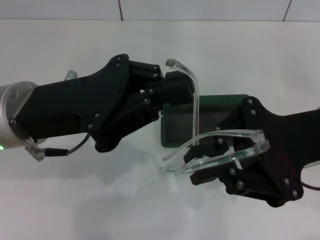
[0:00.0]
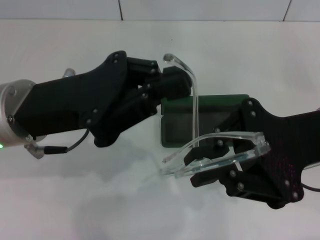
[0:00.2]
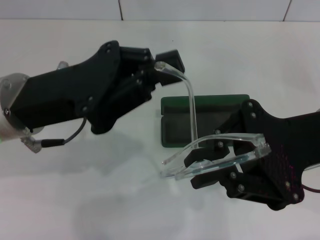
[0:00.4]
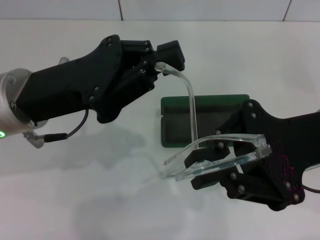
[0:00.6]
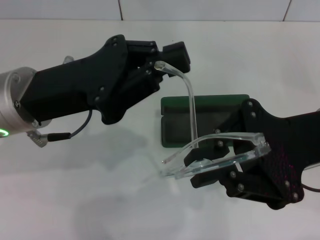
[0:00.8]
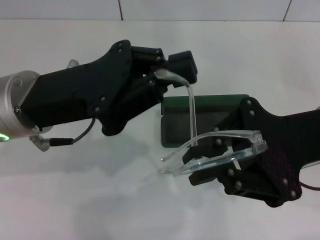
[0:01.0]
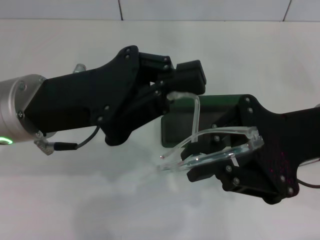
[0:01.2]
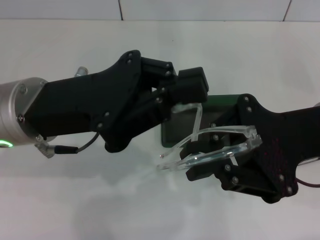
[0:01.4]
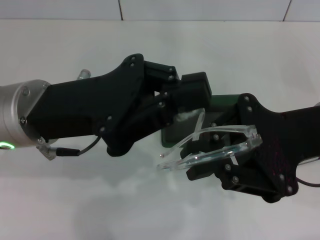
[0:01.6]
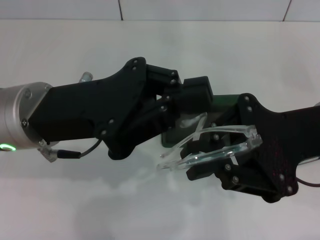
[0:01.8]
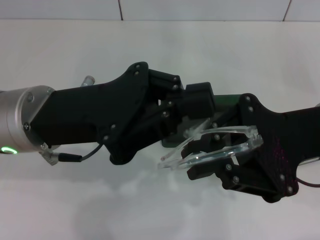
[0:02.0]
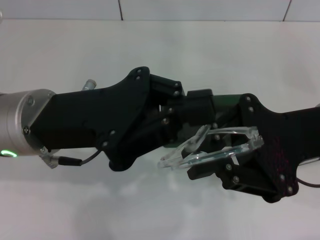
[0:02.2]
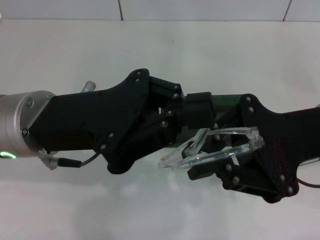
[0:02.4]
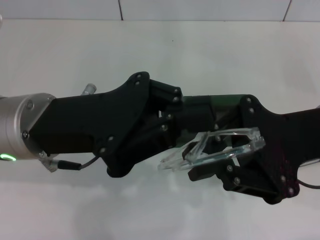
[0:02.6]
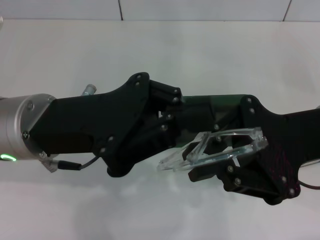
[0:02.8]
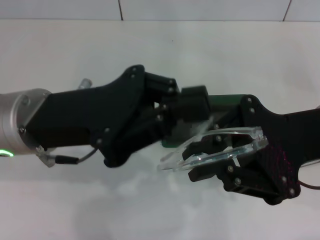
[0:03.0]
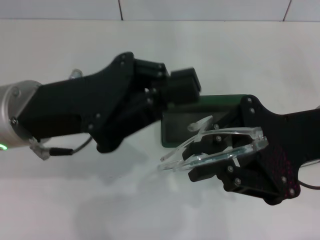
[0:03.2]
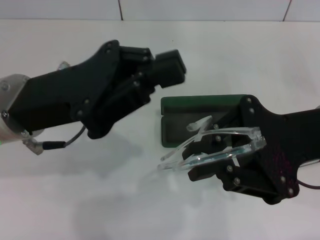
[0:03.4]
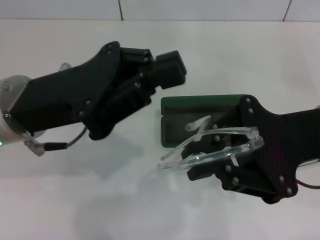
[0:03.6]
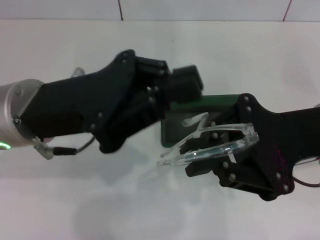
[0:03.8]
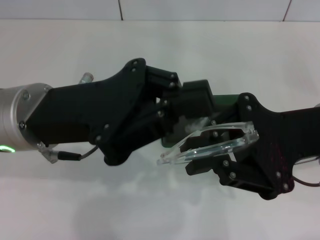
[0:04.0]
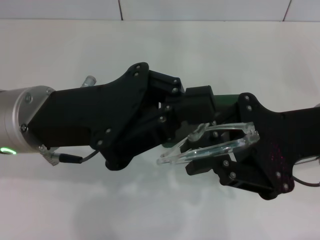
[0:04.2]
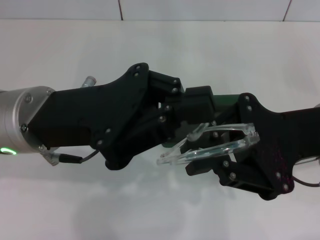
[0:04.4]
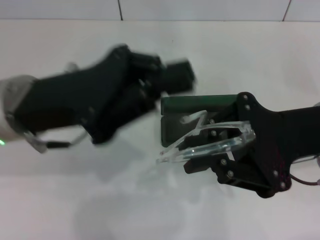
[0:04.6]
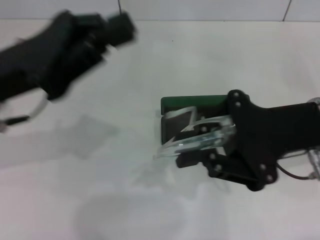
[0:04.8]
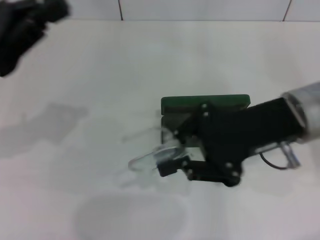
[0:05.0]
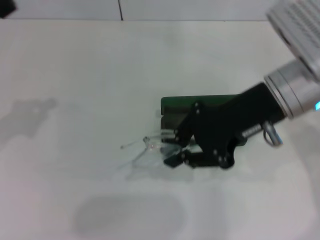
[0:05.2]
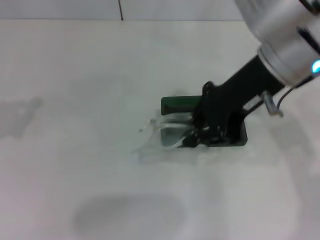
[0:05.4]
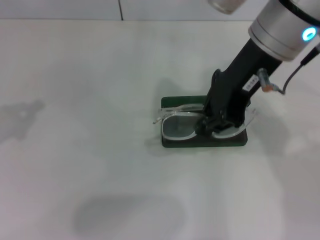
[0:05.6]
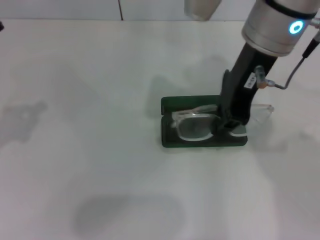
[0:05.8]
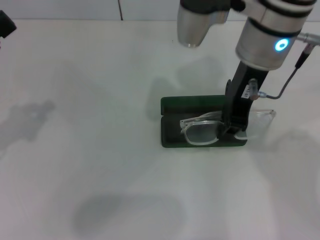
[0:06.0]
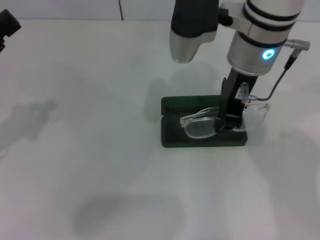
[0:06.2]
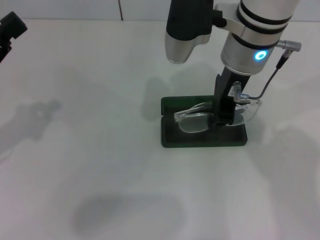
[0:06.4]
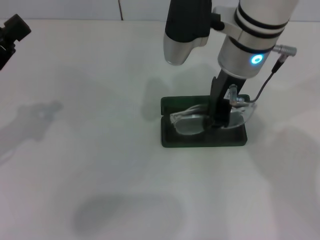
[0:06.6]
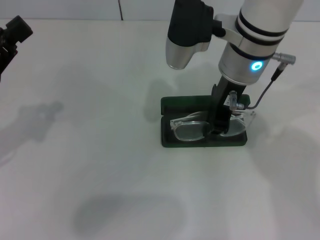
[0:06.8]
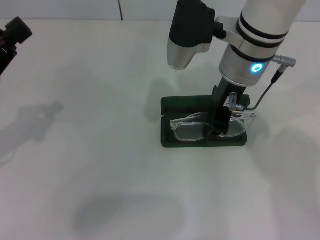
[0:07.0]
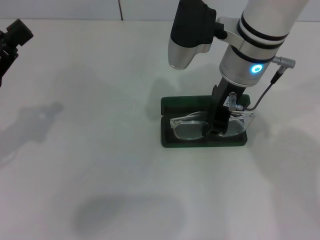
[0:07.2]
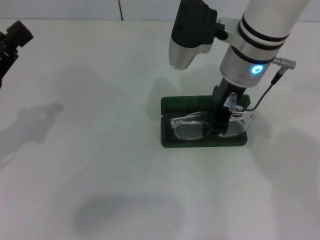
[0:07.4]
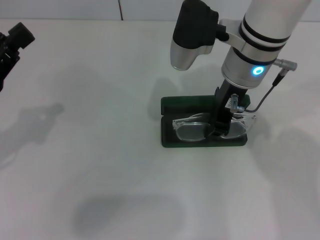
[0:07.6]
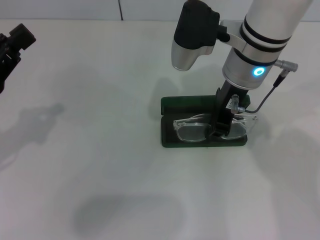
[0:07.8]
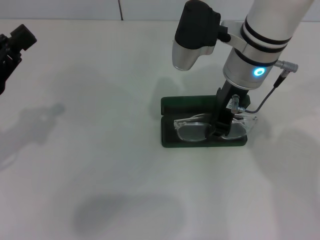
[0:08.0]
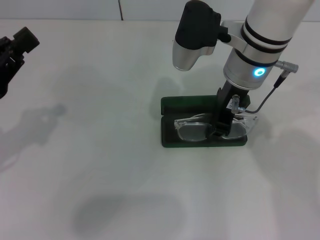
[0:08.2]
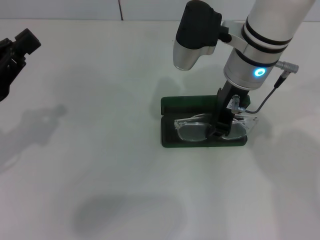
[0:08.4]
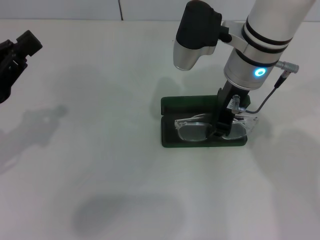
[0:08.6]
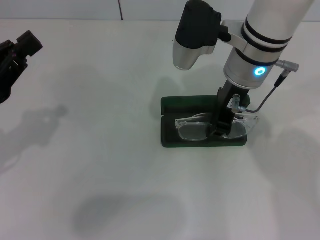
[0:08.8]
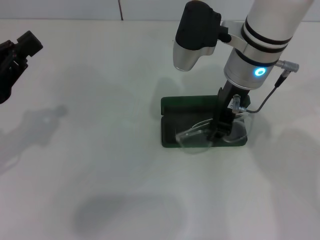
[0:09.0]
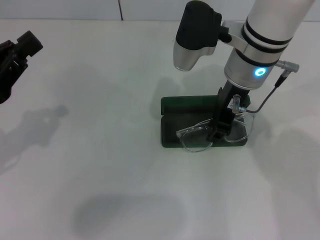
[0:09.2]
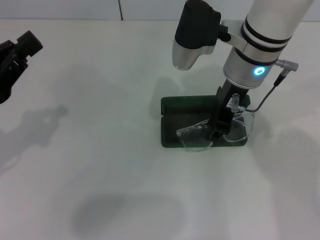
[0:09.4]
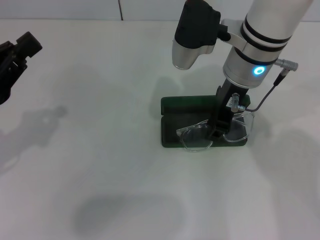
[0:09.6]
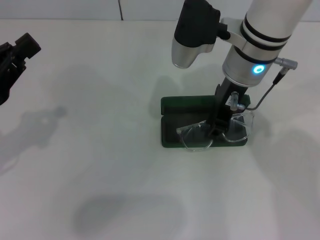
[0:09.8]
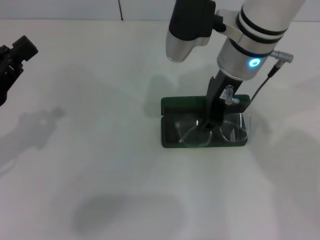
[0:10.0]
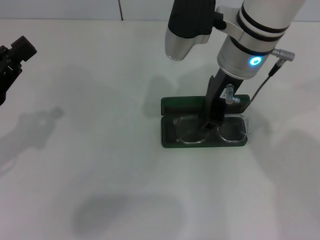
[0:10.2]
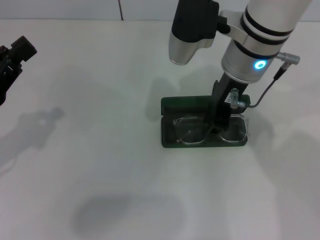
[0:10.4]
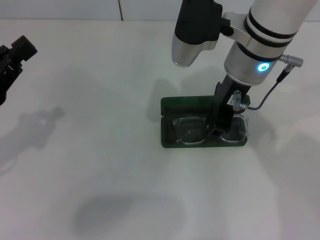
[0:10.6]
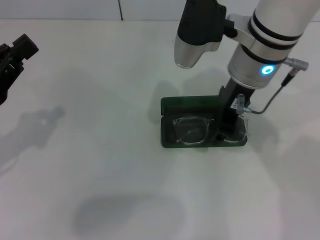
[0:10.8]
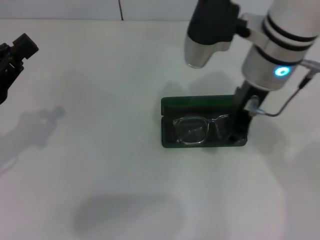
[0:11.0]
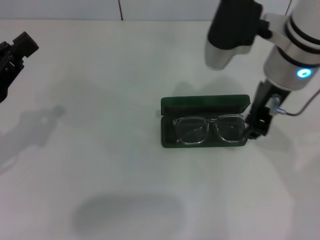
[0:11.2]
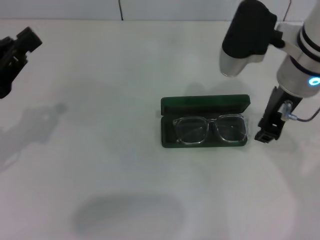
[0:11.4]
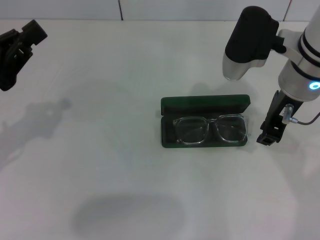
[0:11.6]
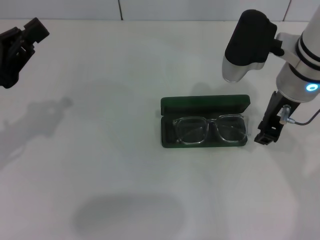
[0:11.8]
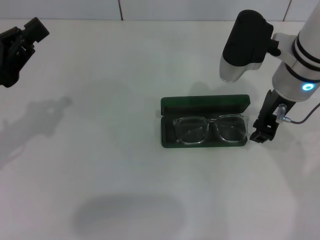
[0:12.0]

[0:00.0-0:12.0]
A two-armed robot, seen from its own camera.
Step, 0:00.0 to 0:02.2: Fold the frame with your left hand.
0:00.0 to 0:01.6: The grippers stay close to where they were, moving slightly.
0:01.6 to 0:03.0: The two grippers keep their place.
0:03.0 to 0:04.4: There are only small adjustments of the grippers.
0:04.4 to 0:06.0: The right gripper heads to the left, forward and upward, covering approximately 15 cm, while the left gripper moves to the left, approximately 15 cm.
0:06.0 to 0:07.6: The right gripper shifts approximately 5 cm downward.
0:07.6 to 0:09.0: Both grippers stay about where they are.
0:09.0 to 0:10.4: The grippers make only small movements.
0:10.4 to 0:12.0: The right gripper shifts roughly 5 cm to the right.

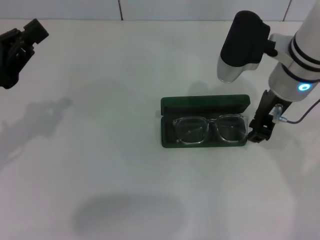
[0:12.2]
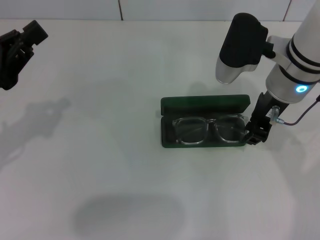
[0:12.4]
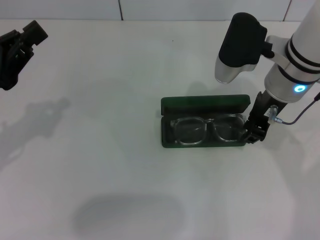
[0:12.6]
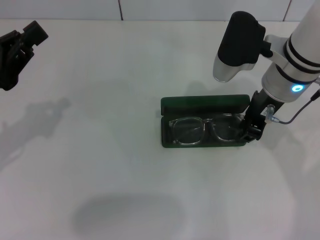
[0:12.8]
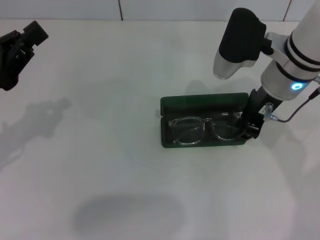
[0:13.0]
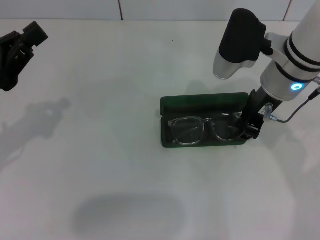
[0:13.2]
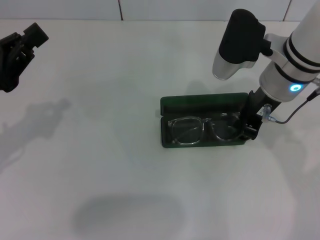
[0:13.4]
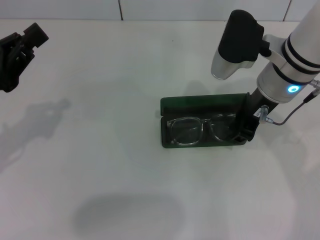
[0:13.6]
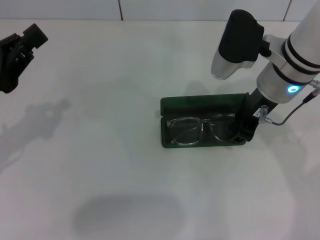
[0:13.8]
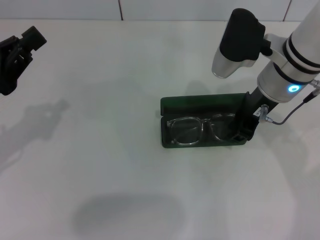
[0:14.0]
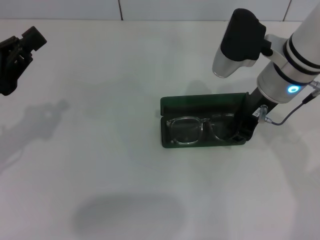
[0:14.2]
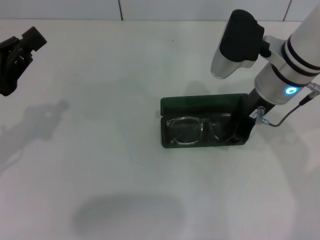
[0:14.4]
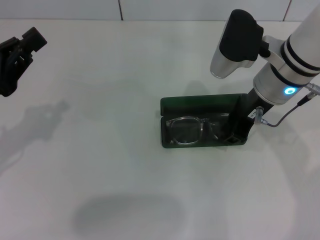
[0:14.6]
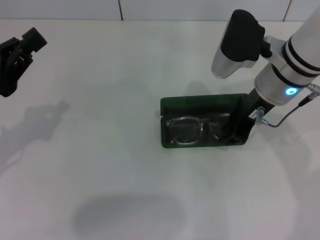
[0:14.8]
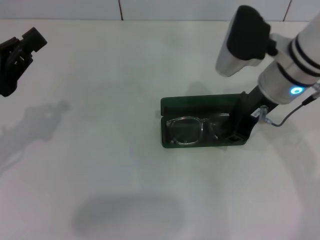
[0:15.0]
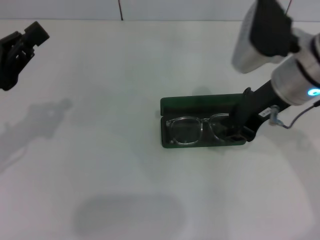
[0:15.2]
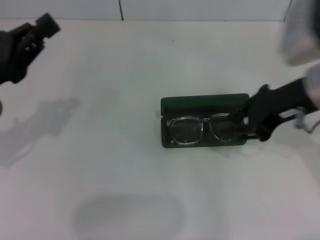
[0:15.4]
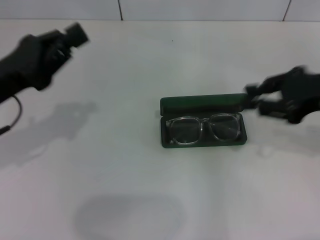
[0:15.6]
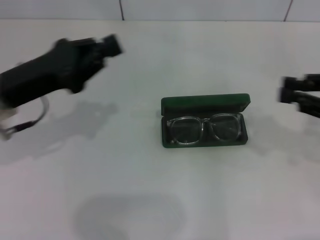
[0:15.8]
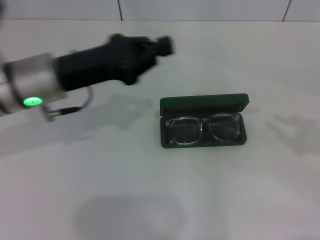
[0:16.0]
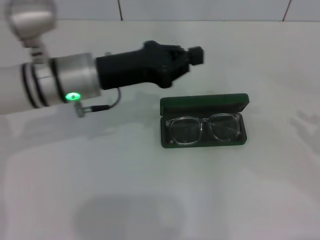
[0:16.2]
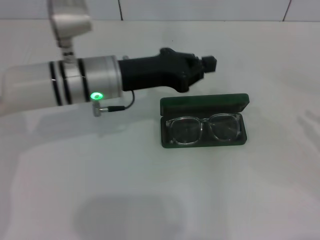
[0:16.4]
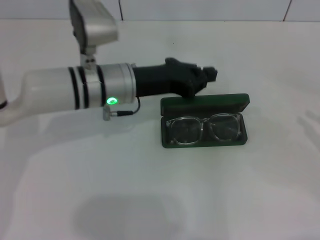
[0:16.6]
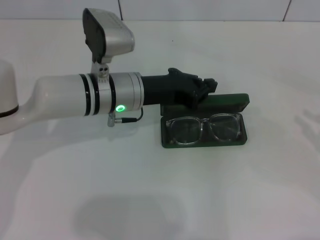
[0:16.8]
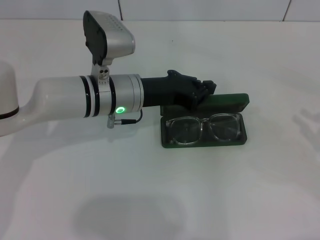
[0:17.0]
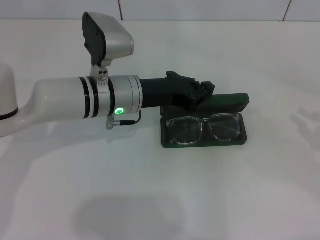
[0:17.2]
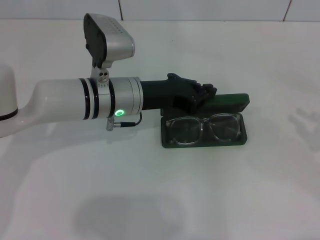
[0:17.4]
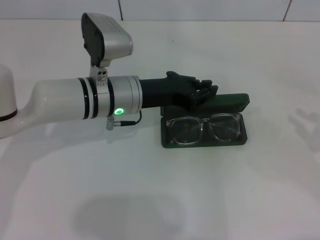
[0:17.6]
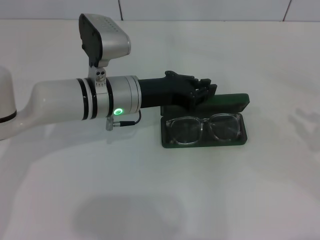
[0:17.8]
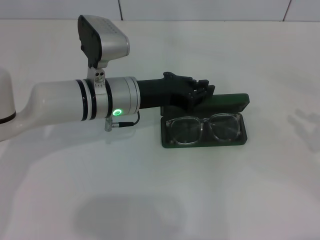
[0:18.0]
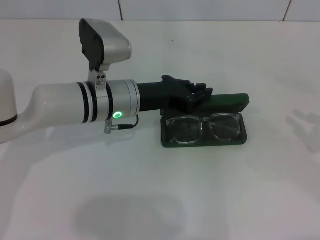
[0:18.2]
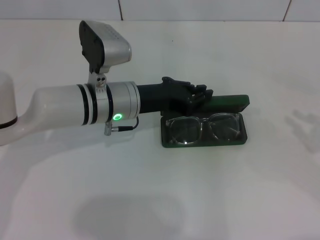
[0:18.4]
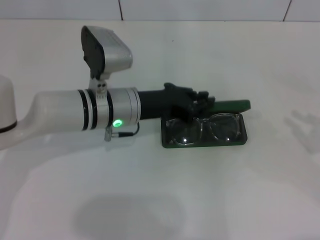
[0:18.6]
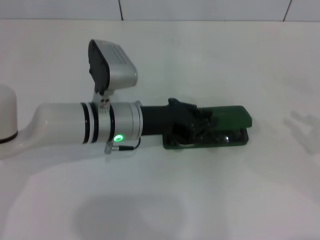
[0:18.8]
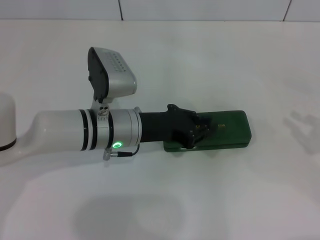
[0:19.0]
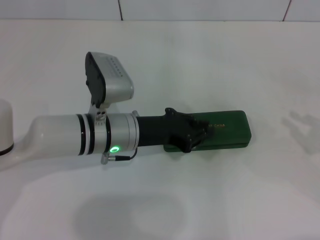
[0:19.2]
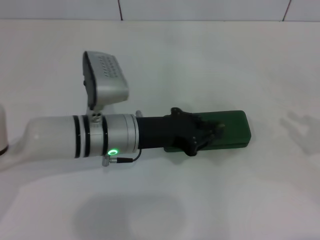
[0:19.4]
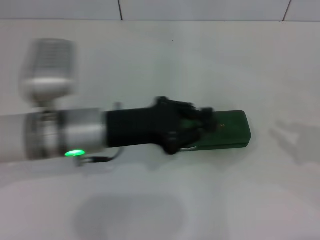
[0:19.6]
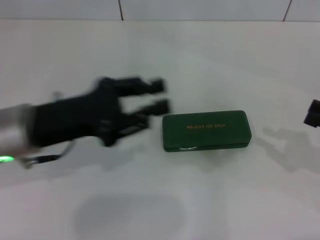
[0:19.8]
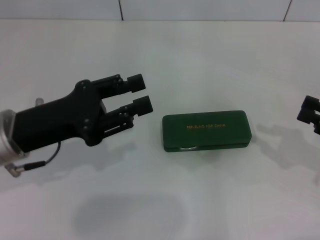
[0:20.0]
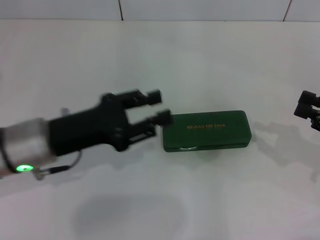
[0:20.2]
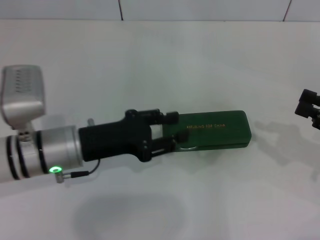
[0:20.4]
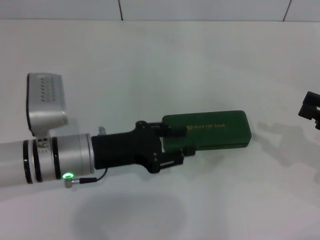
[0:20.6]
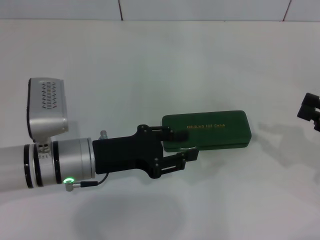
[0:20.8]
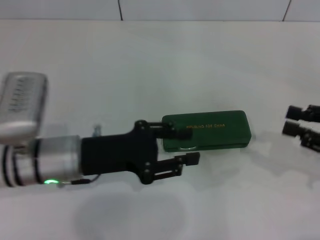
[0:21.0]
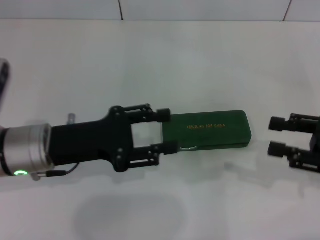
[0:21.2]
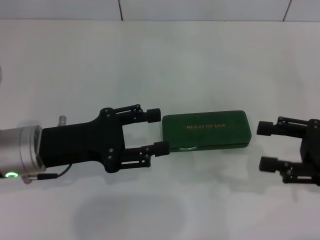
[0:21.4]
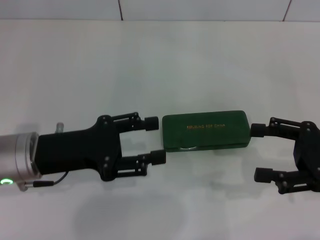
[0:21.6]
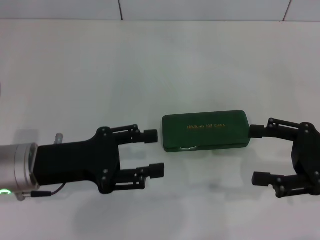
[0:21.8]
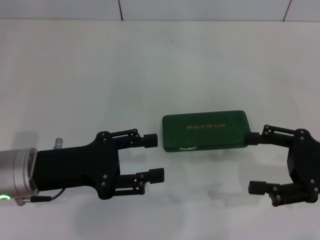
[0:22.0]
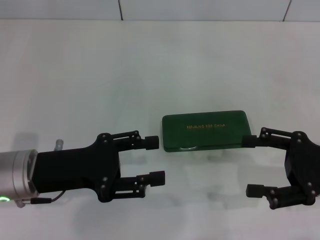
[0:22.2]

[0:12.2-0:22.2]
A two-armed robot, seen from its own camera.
Step, 0:12.2 to 0:15.2: Put the glasses into the case with your right hand.
Step, 0:15.4 to 0:19.2: Close the glasses case with your left hand.
0:12.2 to 0:15.0: There are only small adjustments of the grippers.
0:15.0 to 0:16.4: The right gripper goes about 30 cm to the right and backward; the left gripper goes approximately 20 cm to the right and forward.
0:16.4 to 0:18.0: The grippers make only small movements.
0:18.0 to 0:19.4: The left gripper shifts by some 5 cm.
0:19.4 to 0:20.8: The left gripper goes roughly 5 cm to the left.
0:20.8 to 0:22.2: Both grippers travel together to the left, some 5 cm. The right gripper opens.
